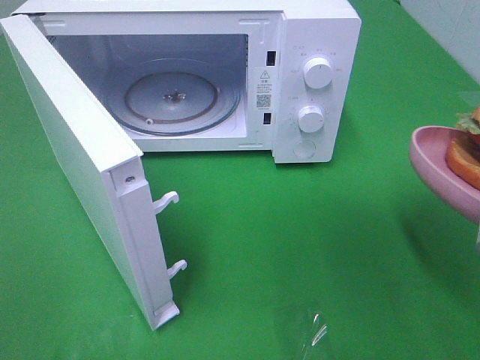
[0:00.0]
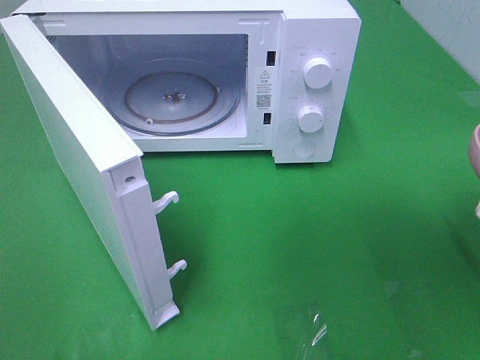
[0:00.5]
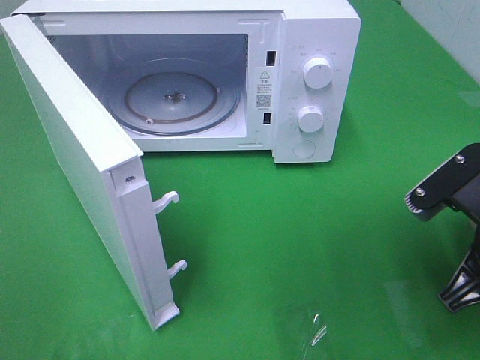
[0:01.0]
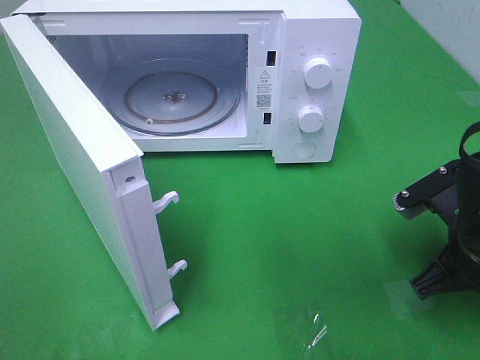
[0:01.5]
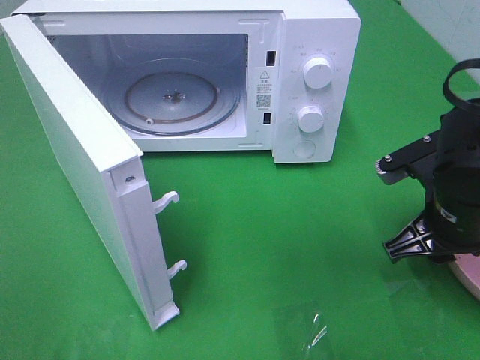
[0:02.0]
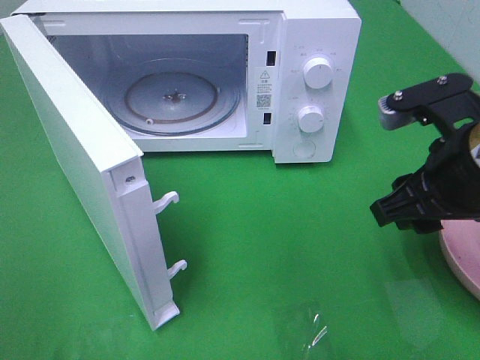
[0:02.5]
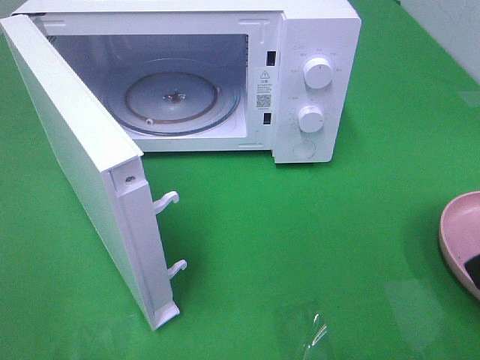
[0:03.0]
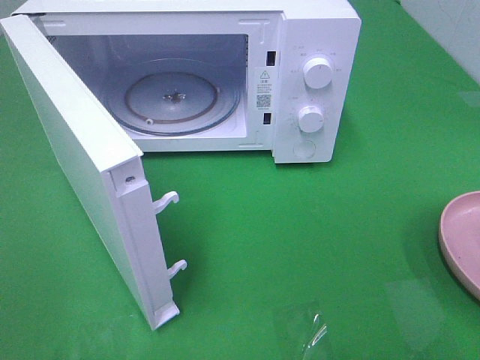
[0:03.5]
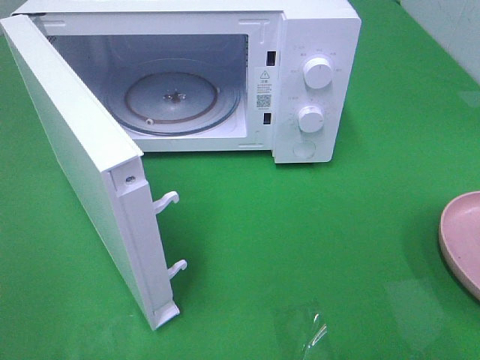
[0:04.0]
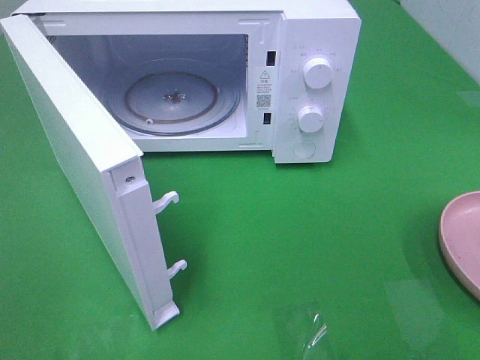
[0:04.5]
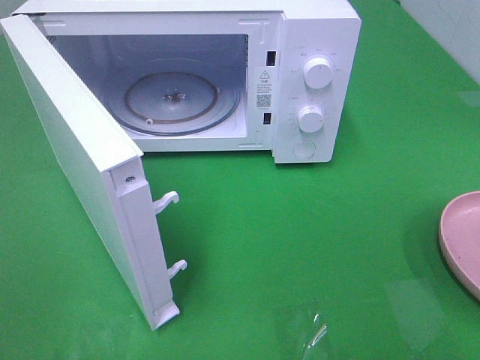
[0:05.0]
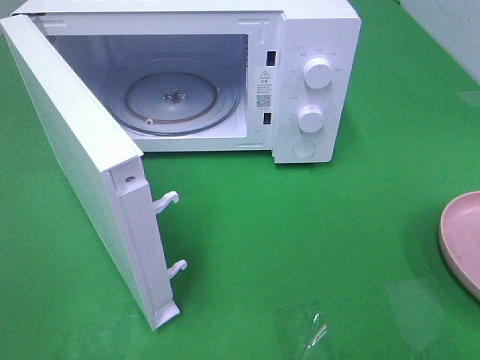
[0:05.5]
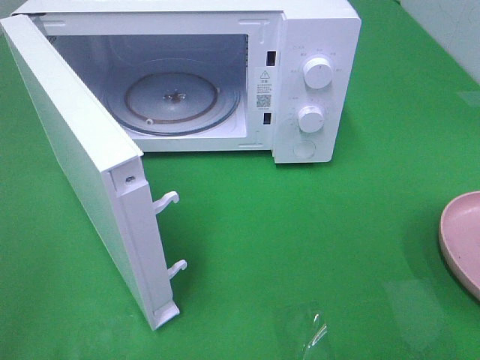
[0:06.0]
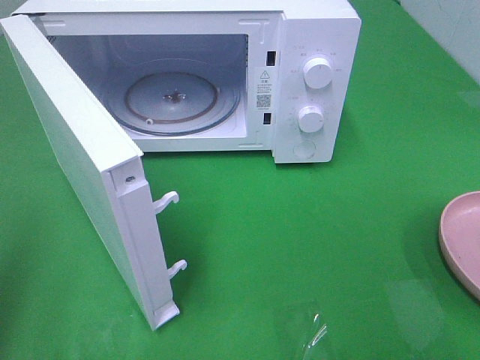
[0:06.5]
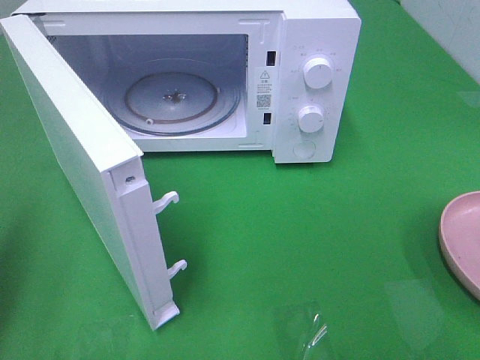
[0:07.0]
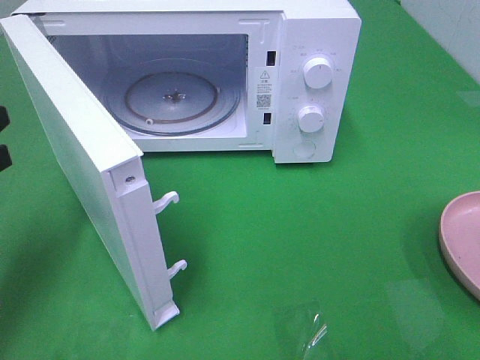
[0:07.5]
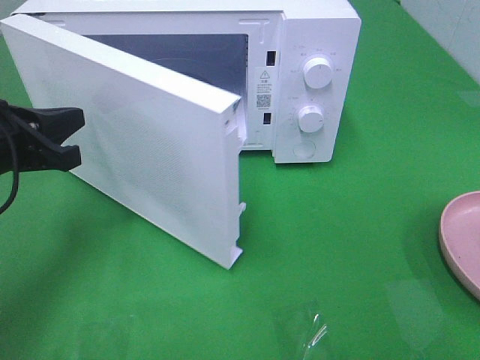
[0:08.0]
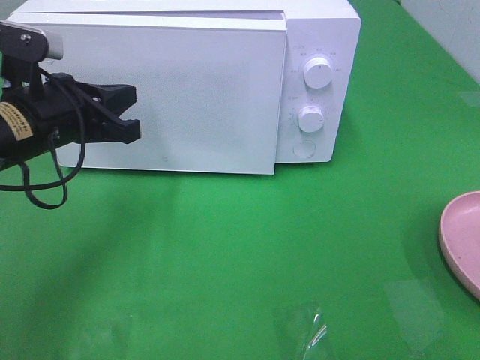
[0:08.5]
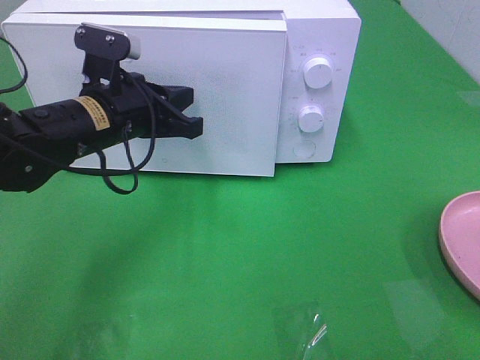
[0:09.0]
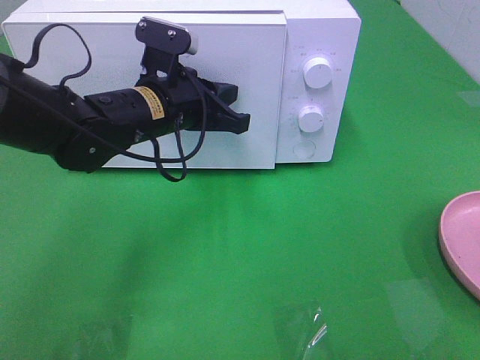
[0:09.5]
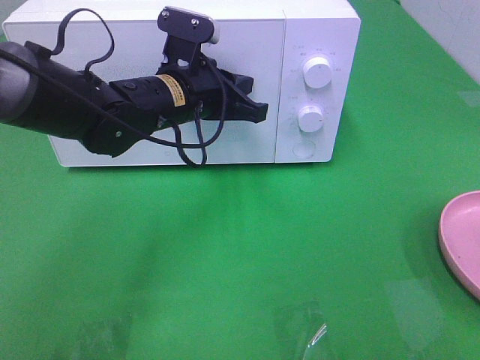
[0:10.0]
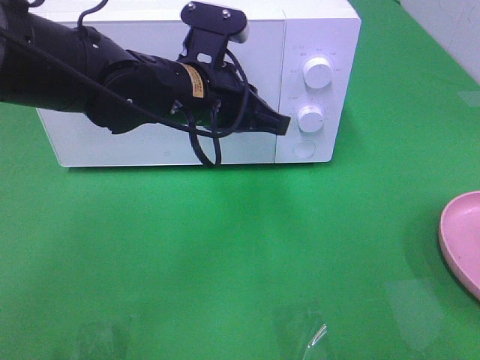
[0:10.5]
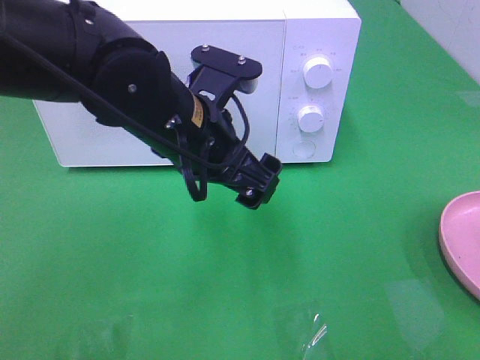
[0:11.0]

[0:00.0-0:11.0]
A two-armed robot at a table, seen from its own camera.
Task of the whole recording: Heat the burger.
Step, 0:02.0 to 0:09.5: Left hand: close the microwave door.
0:00.0 to 0:02.0: The right gripper heads forward and downward, covering approximately 15 cm, and opens up.
0:02.0 to 0:03.5: The right gripper heads backward and upward, covering approximately 25 cm, and opens.
0:05.5 to 0:07.5: The left gripper shifts roughly 25 cm forward, and closes.
0:07.5 to 0:09.0: The left gripper goes about 20 cm to the right and forward.
0:09.0 to 0:11.0: The left gripper goes approximately 10 cm to the right and backward, and opens.

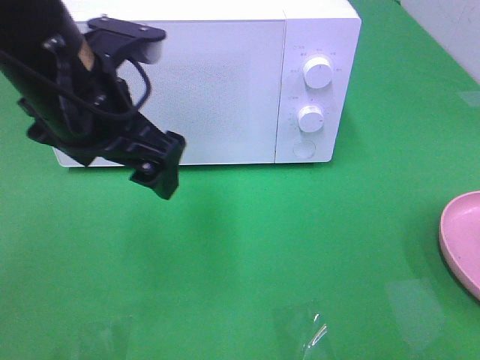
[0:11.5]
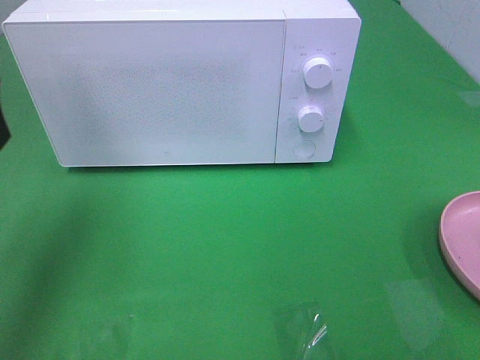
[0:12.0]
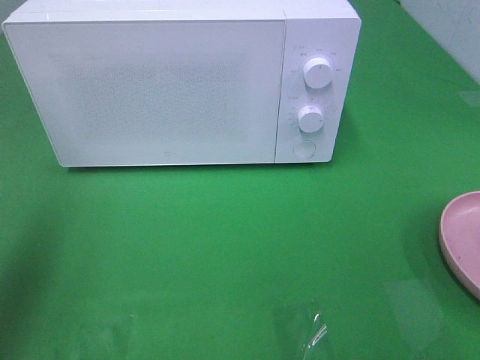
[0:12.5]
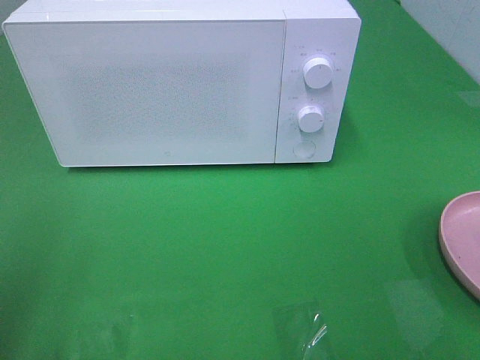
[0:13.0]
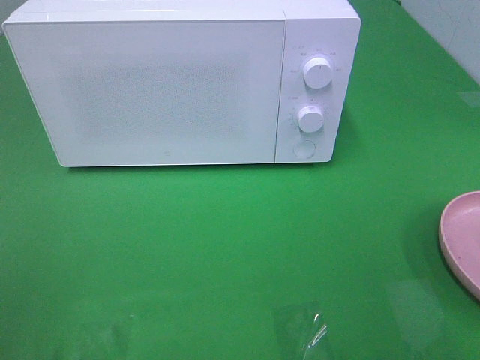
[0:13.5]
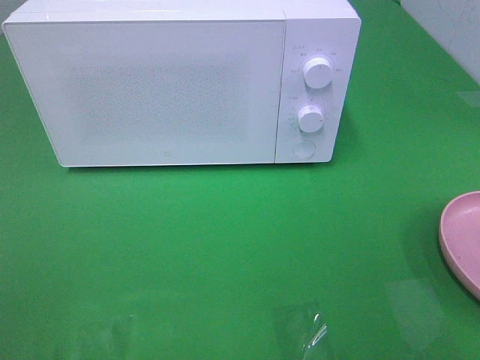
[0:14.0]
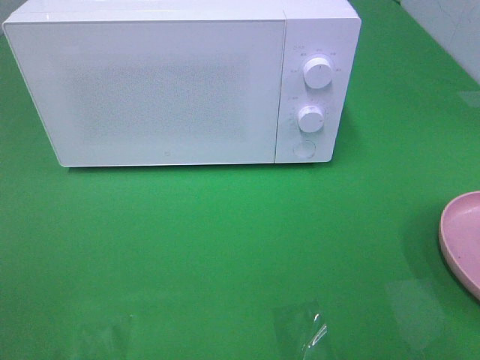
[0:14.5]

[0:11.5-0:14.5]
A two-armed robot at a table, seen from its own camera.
Task of the whole recording: Heat the burger.
0:11.5 to 0:13.0: The left gripper moves to the left and backward, some 25 cm.

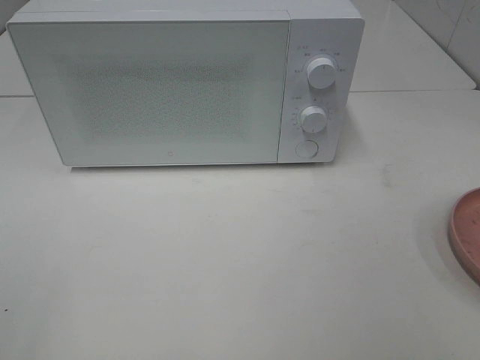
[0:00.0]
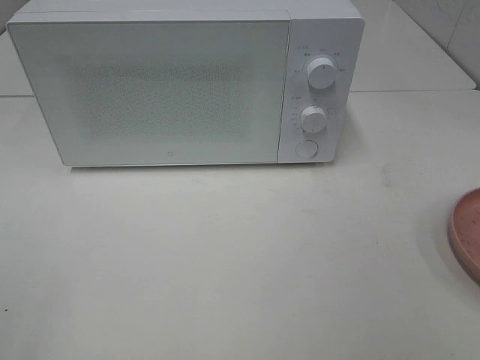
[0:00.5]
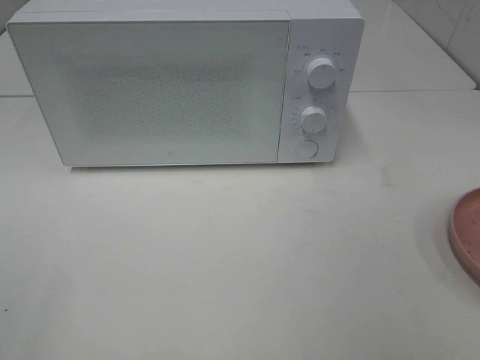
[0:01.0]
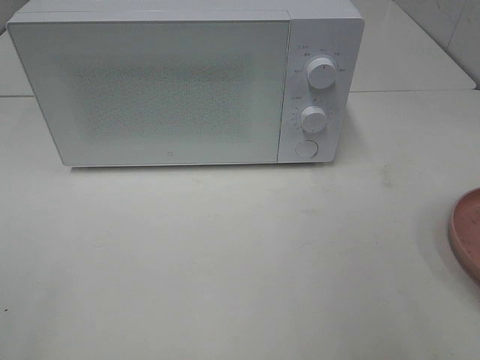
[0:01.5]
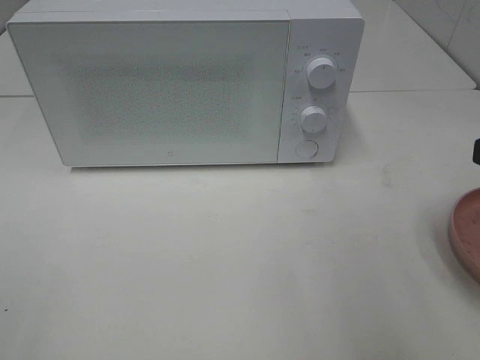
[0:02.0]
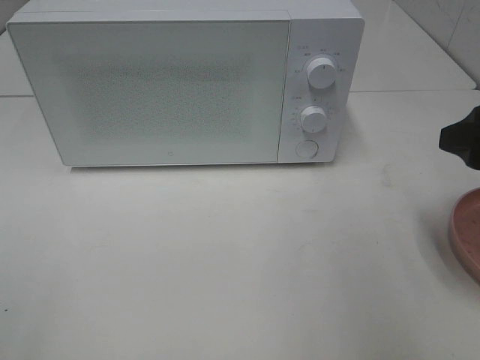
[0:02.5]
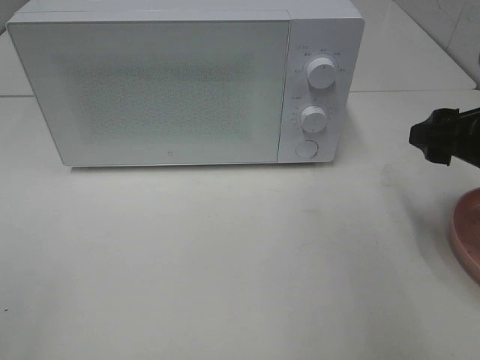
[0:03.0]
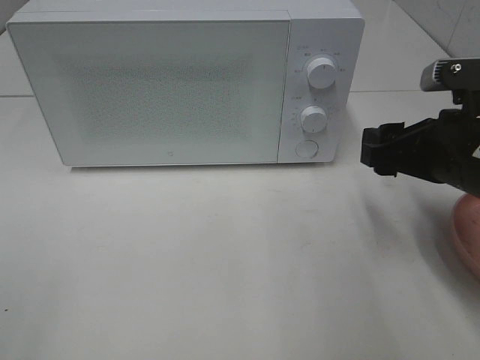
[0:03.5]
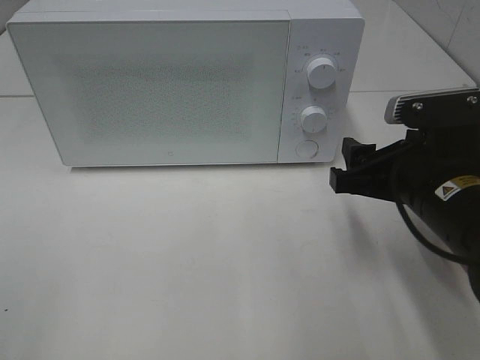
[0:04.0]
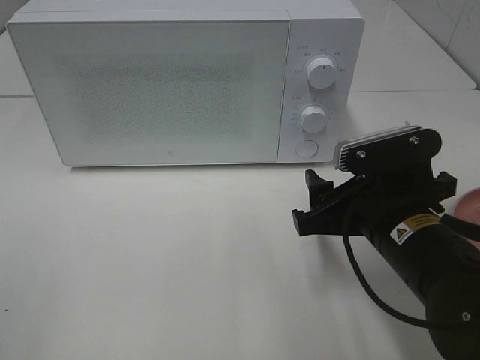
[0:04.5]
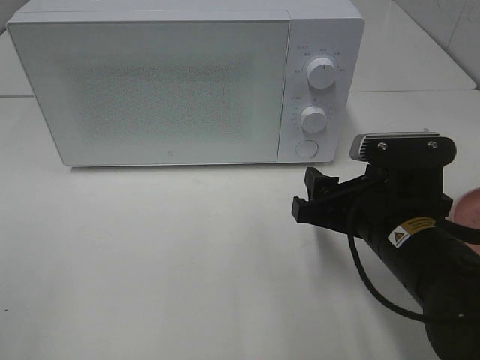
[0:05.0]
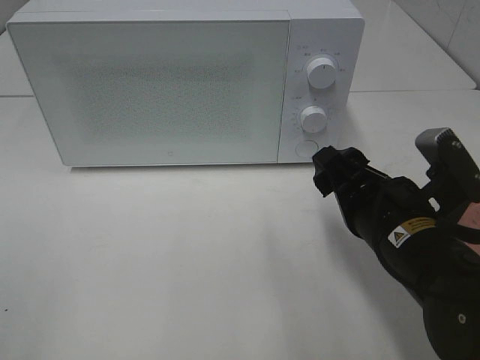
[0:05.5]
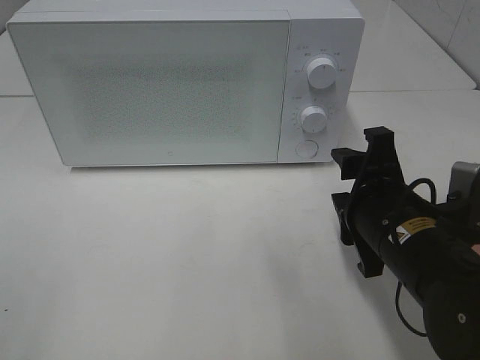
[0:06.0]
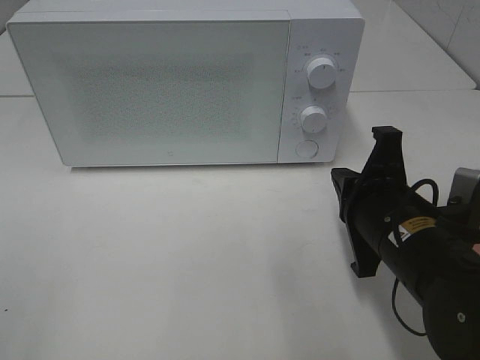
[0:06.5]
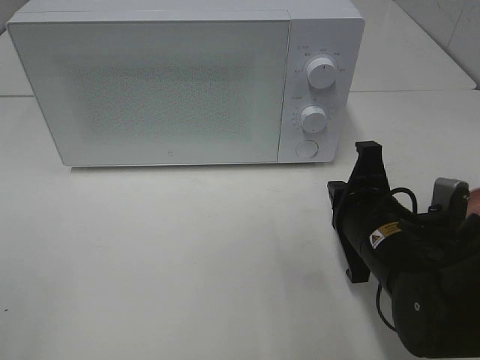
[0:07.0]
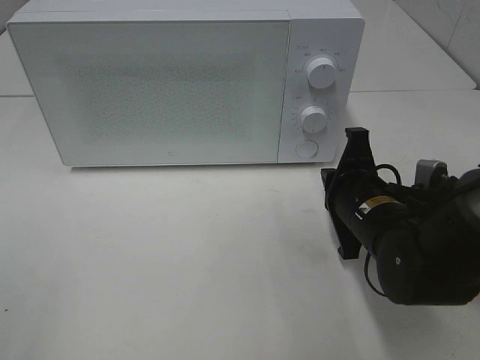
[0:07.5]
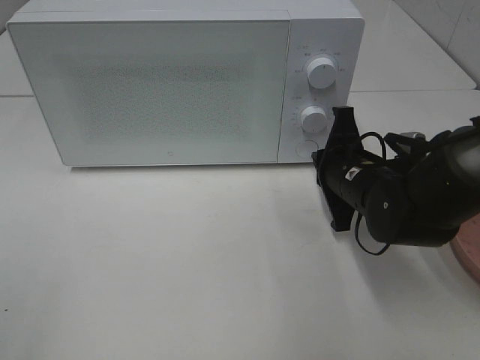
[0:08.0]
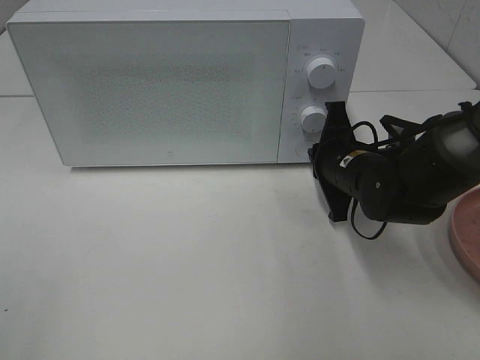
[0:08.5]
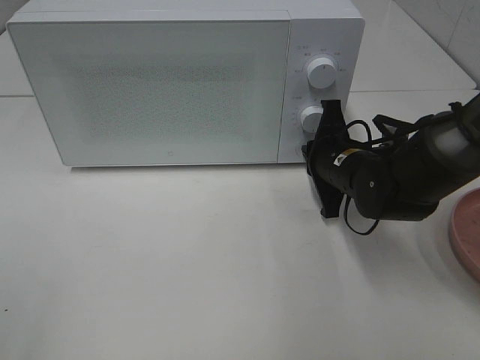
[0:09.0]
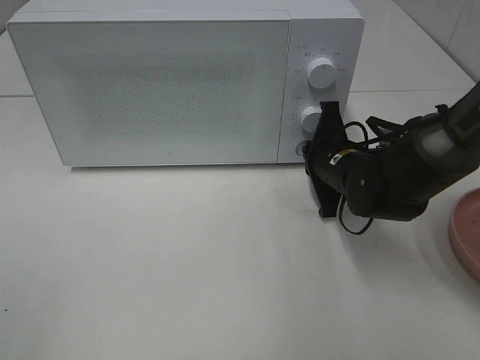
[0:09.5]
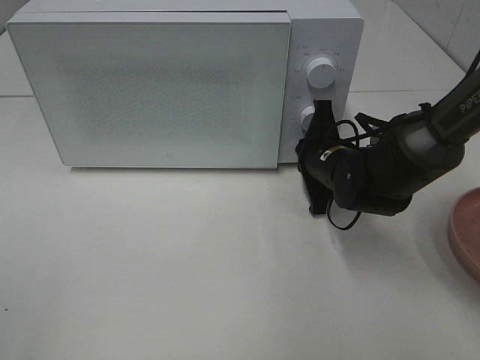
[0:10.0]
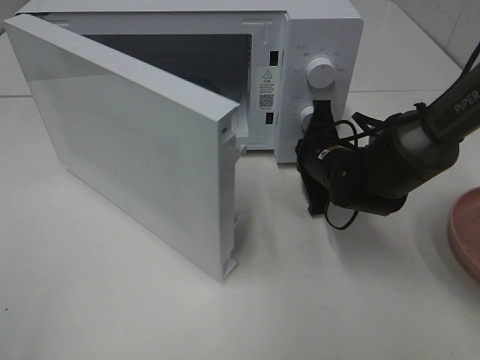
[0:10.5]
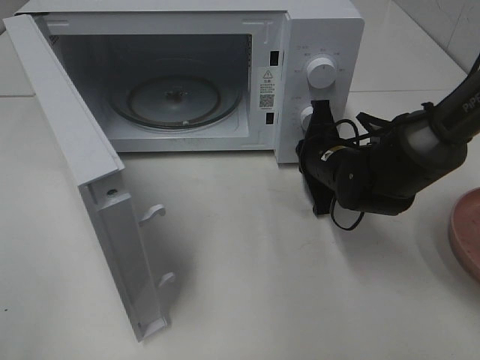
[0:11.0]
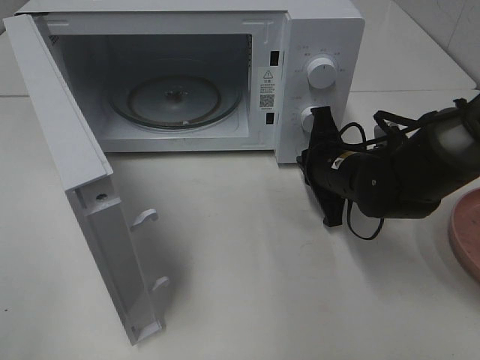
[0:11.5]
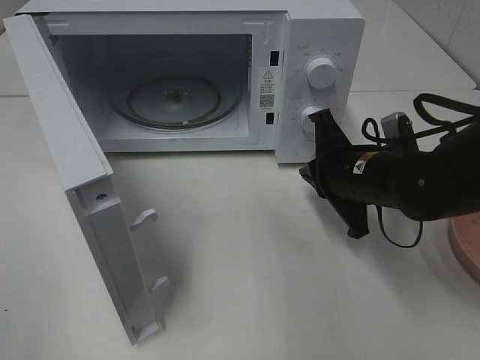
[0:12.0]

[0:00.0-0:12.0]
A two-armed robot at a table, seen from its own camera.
Task of the whole recording: Heat the burger.
Step, 0:00.0 to 0:11.5: Right hand: press the switch.
0:02.0 to 0:04.0: The right gripper goes approximately 15 cm downward, to the left and forward.
0:06.0 to 0:08.0: The right gripper travels forward by approximately 10 cm, and closes its fingers.
0:08.0 to 0:10.0: The right gripper moves forward, roughly 5 cm.
0:10.0 to 0:12.0: The right gripper goes some 5 cm backward.
